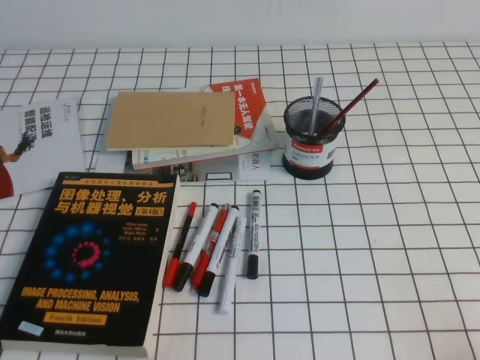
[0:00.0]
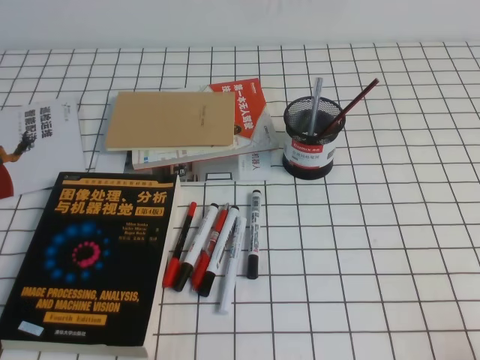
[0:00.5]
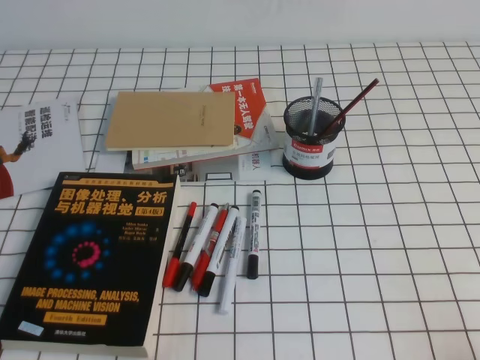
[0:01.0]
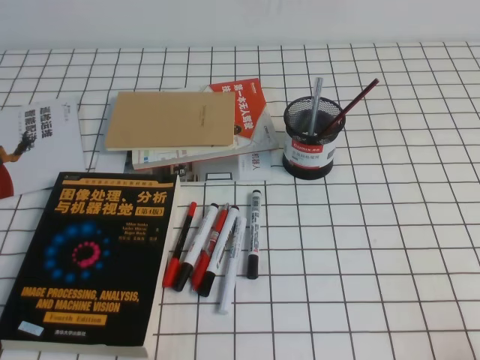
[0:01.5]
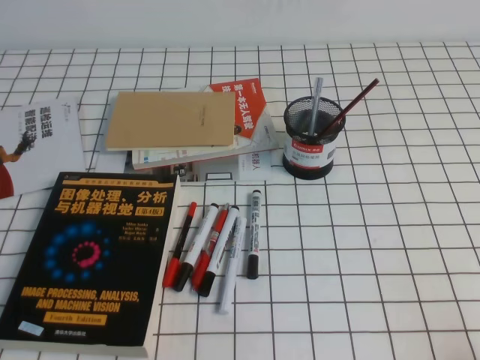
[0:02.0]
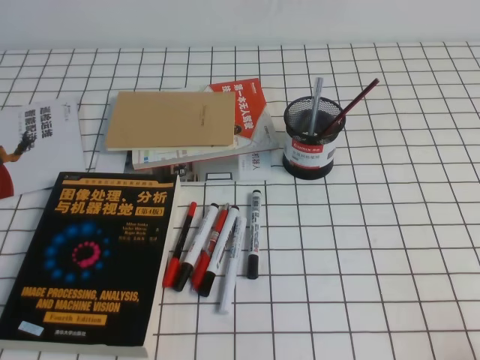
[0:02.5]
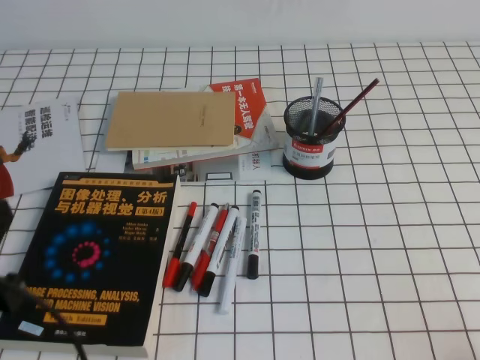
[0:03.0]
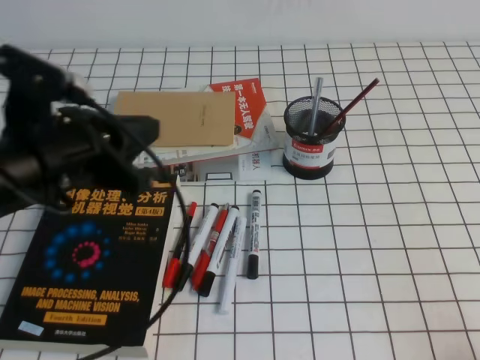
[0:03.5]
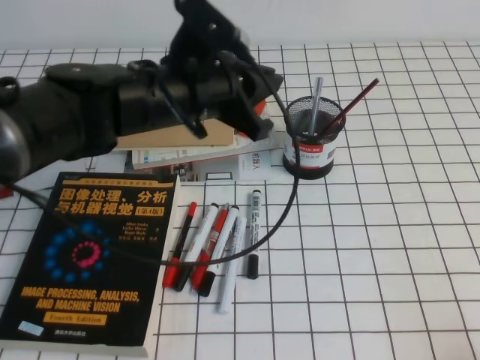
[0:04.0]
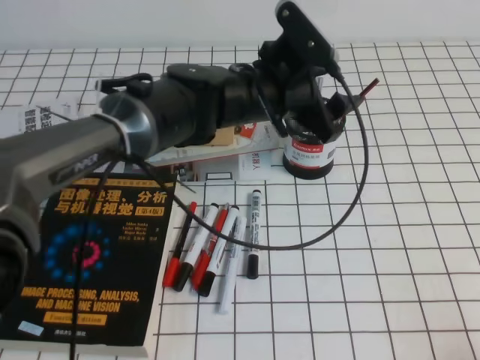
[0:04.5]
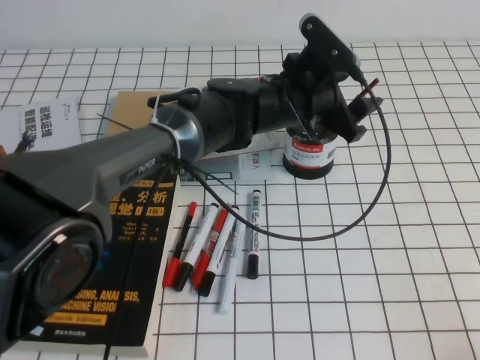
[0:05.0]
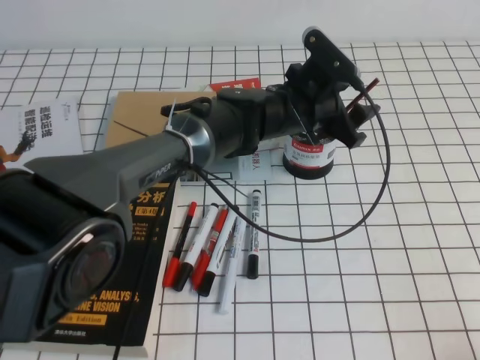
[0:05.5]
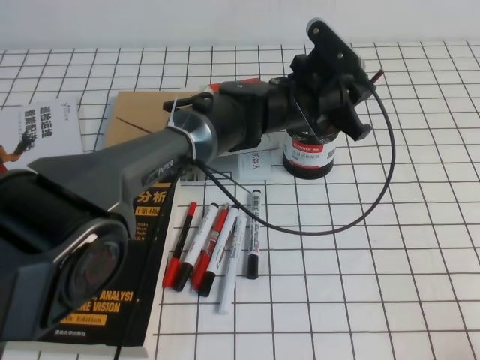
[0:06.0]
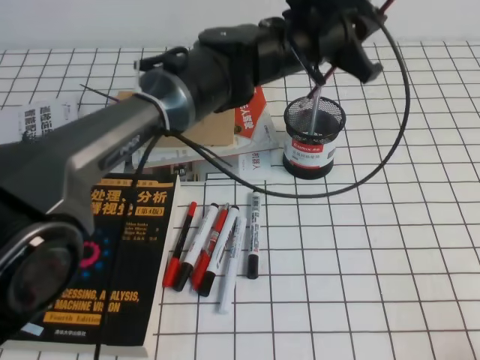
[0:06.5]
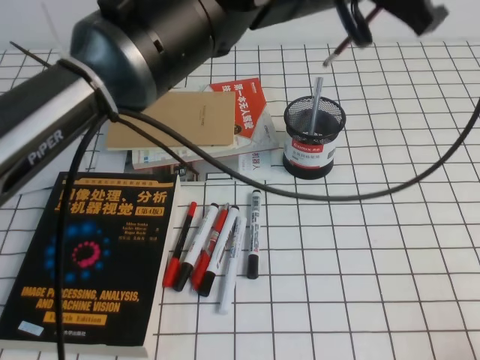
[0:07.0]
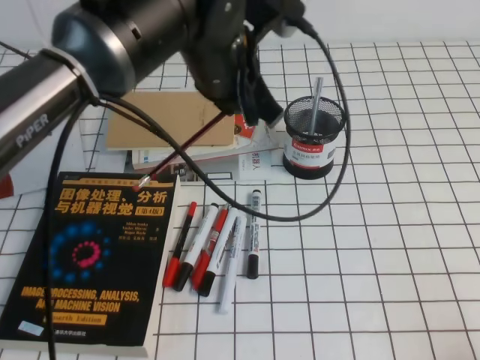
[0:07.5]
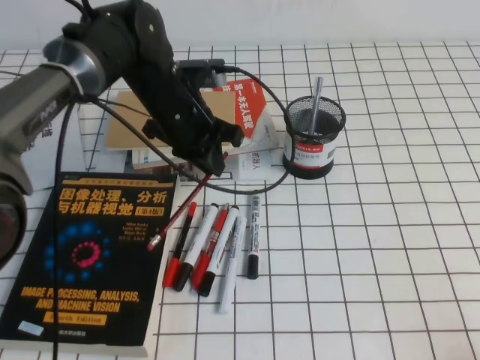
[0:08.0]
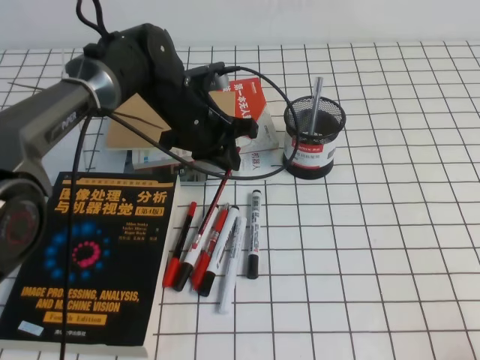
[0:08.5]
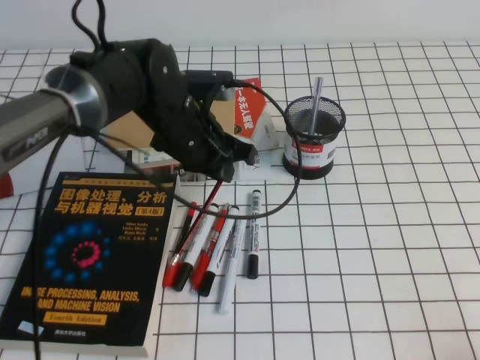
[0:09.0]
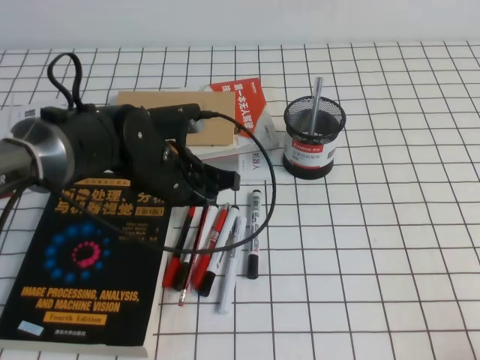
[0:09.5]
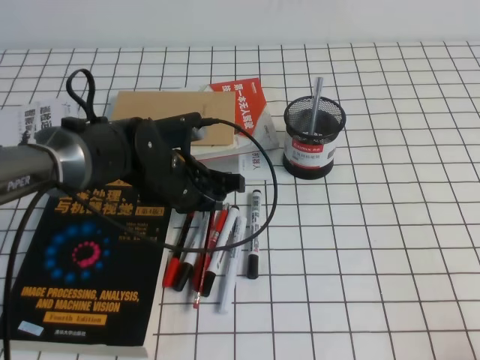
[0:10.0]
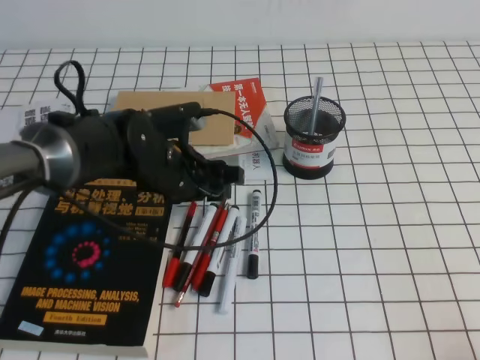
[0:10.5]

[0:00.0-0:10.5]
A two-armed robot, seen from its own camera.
0:02.0 to 0:04.0: The left gripper heads forward, to the right and upward, covering some 35 cm.
0:04.0 to 0:06.5: The left gripper shifts roughly 15 cm to the right and forward, and opens and closes again.
0:06.5 to 0:08.5: The left gripper goes some 15 cm to the left and downward.
0:08.5 to 0:10.5: The left gripper travels backward by some 10 cm, and opens up.

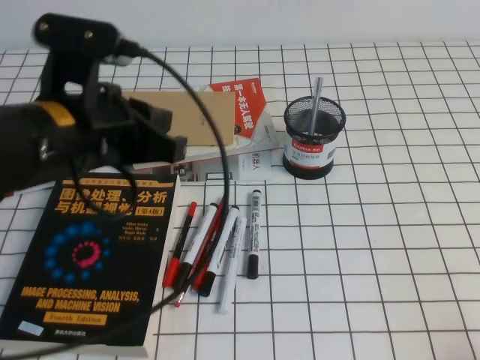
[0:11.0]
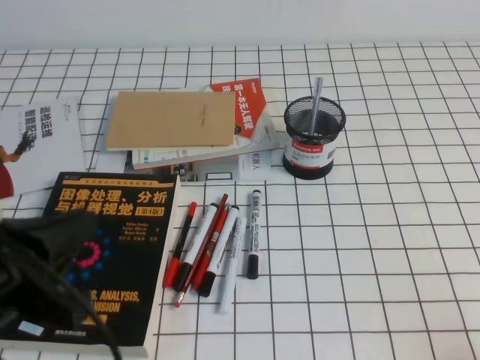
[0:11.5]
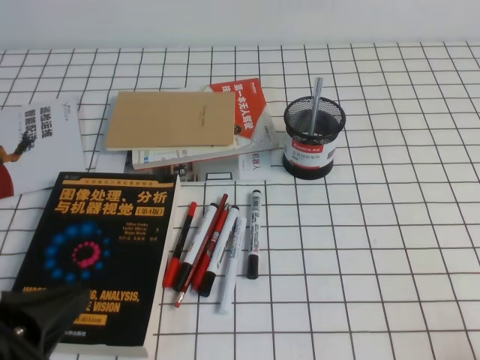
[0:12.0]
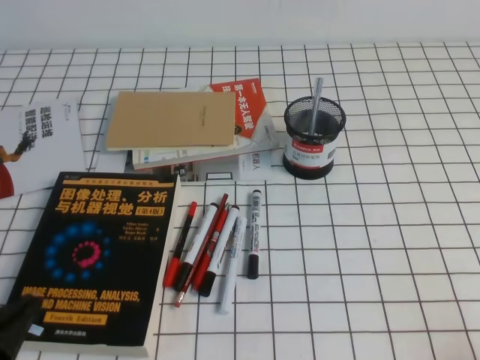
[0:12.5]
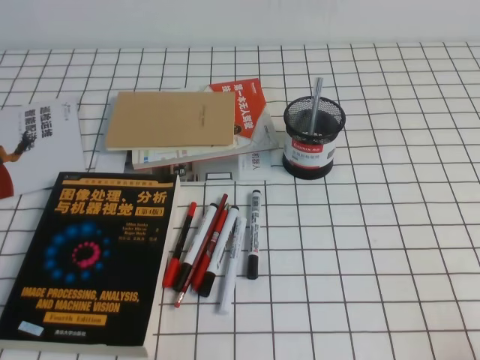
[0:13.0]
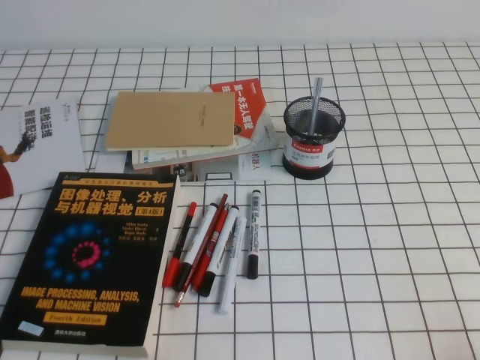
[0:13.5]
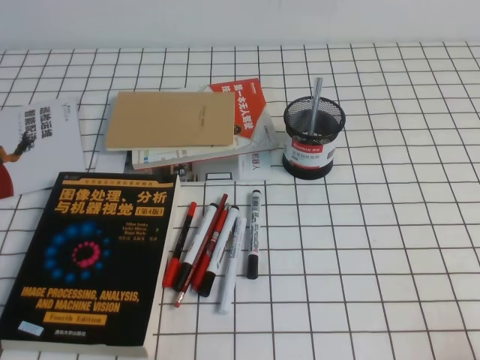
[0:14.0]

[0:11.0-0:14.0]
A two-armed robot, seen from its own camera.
Step, 0:11.0 to 0:14.0: Pick up the pen from the pen holder.
0:11.0 to 0:12.5: The left gripper heads backward, to the left and downward, covering approximately 25 cm.
